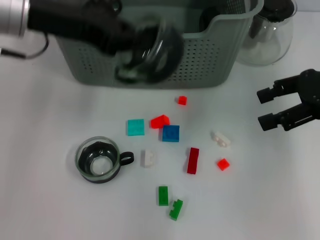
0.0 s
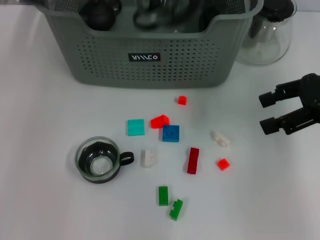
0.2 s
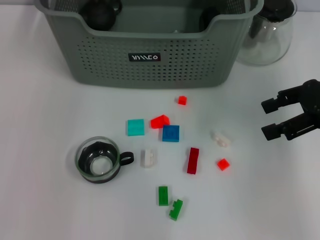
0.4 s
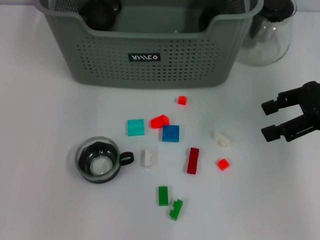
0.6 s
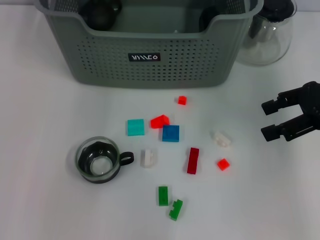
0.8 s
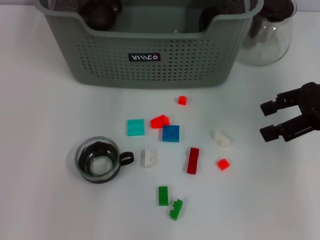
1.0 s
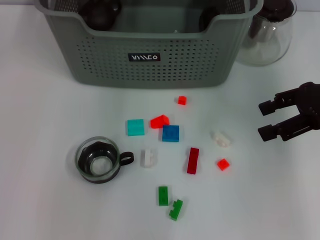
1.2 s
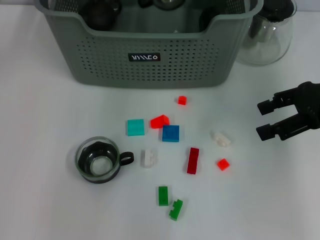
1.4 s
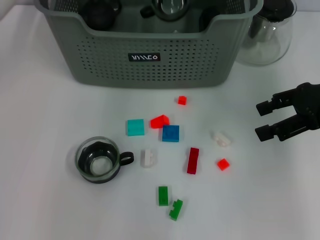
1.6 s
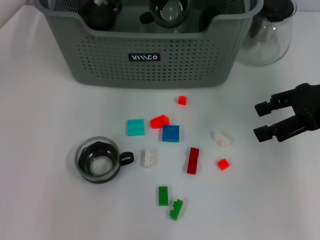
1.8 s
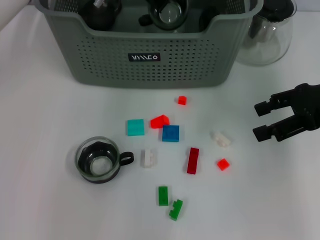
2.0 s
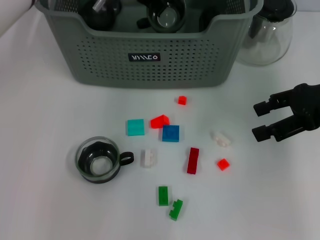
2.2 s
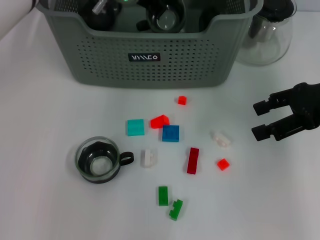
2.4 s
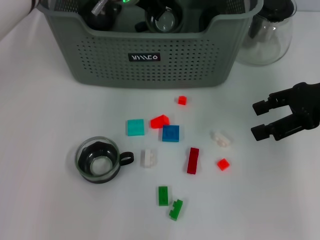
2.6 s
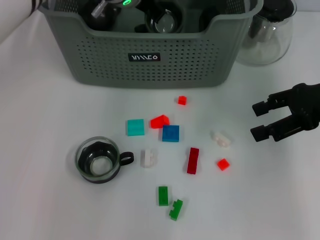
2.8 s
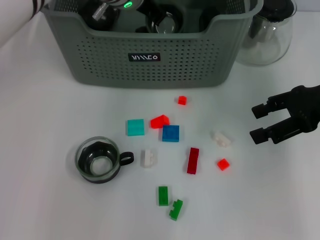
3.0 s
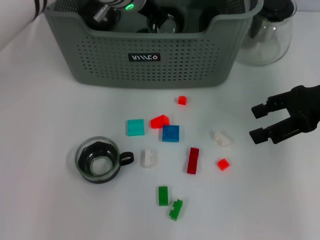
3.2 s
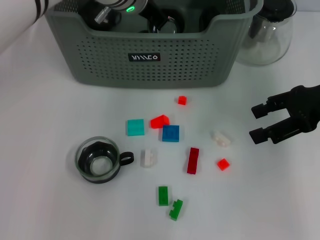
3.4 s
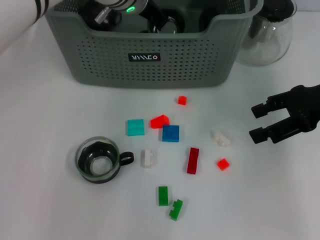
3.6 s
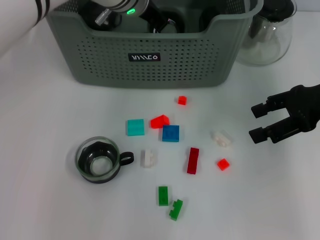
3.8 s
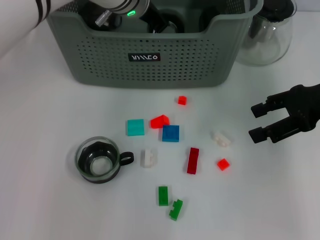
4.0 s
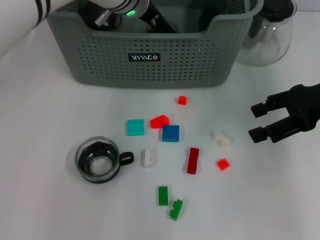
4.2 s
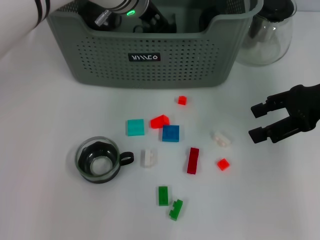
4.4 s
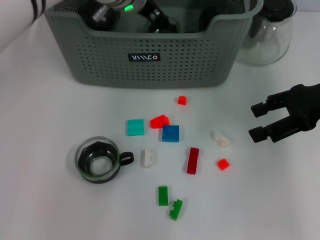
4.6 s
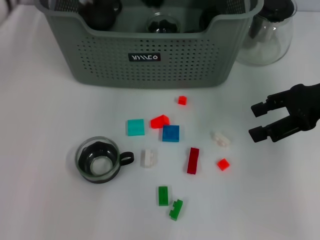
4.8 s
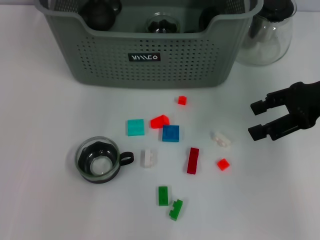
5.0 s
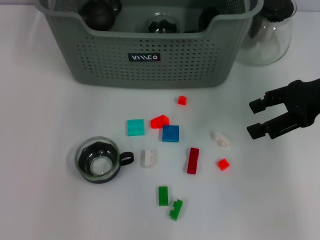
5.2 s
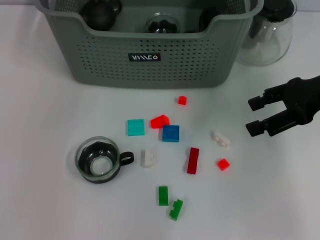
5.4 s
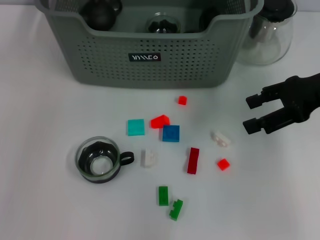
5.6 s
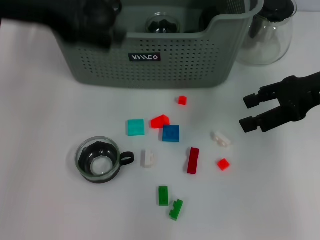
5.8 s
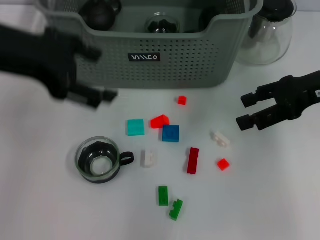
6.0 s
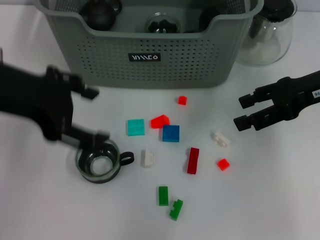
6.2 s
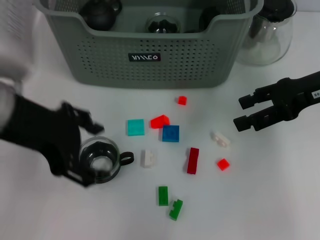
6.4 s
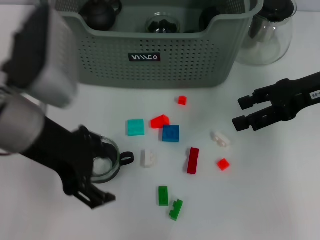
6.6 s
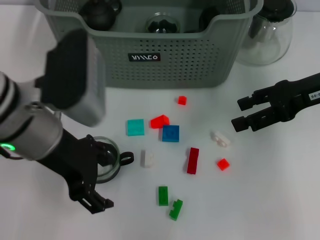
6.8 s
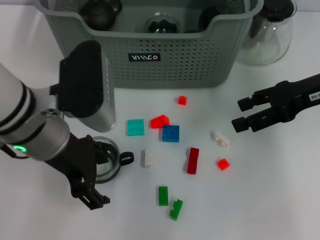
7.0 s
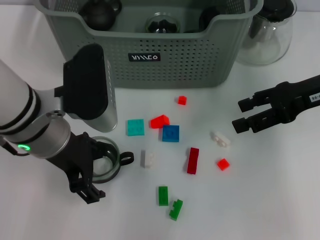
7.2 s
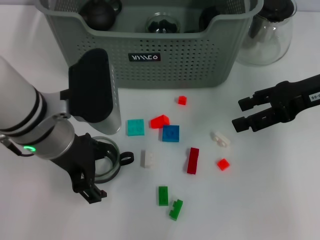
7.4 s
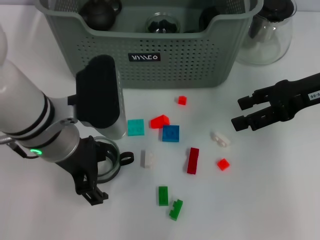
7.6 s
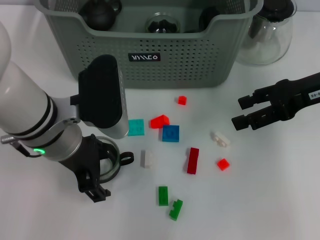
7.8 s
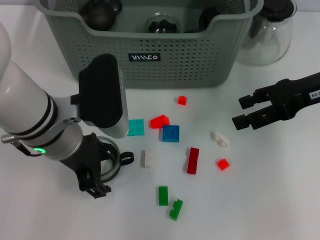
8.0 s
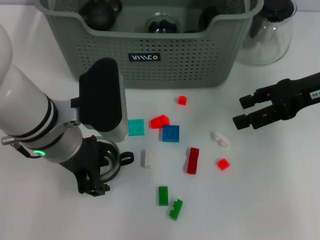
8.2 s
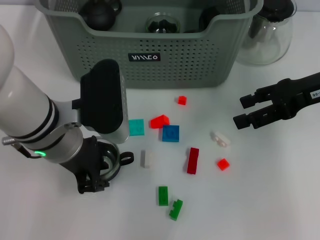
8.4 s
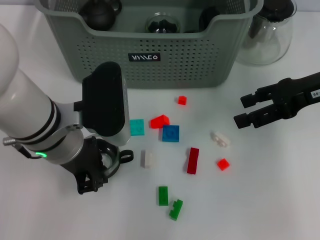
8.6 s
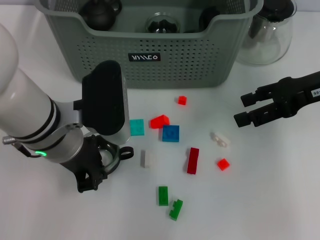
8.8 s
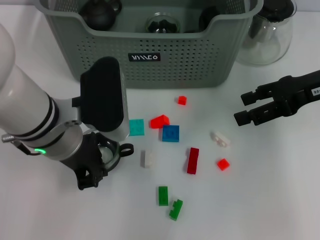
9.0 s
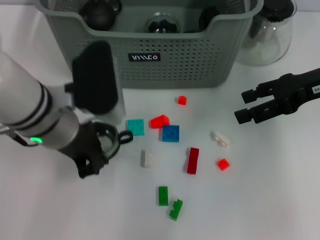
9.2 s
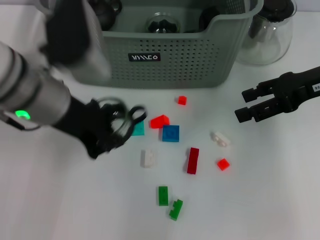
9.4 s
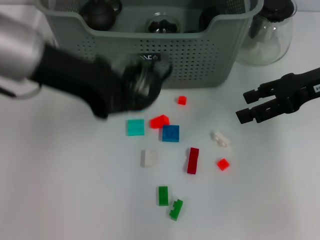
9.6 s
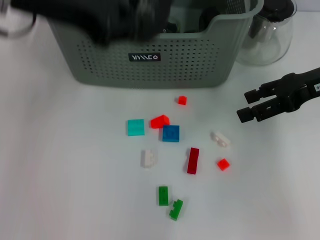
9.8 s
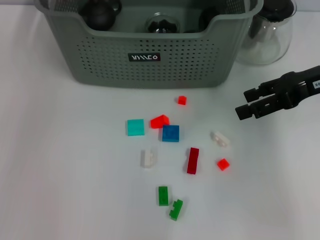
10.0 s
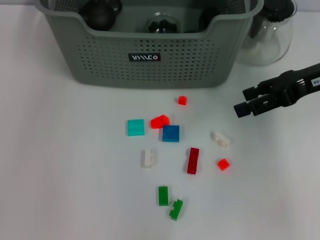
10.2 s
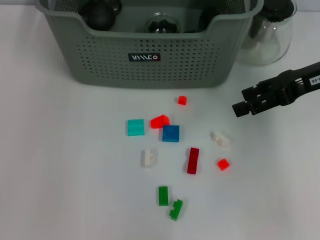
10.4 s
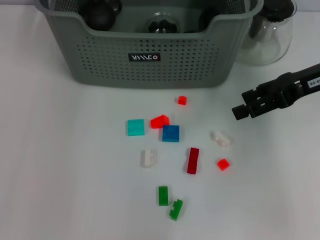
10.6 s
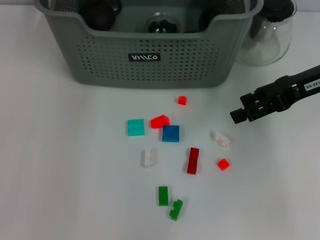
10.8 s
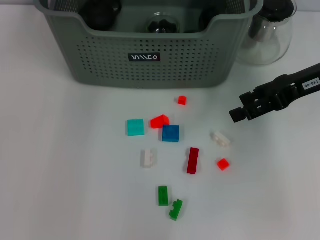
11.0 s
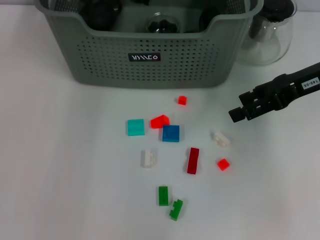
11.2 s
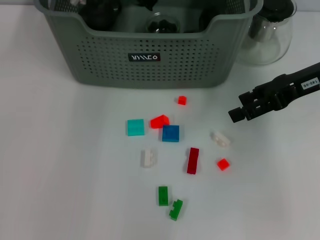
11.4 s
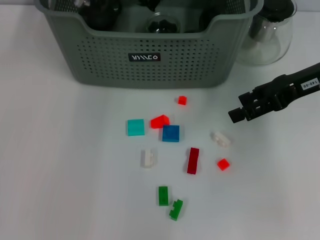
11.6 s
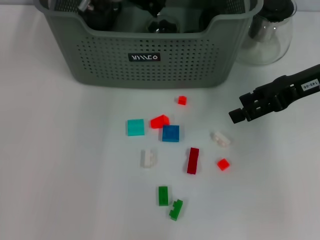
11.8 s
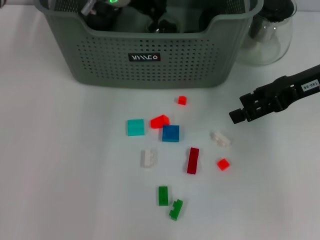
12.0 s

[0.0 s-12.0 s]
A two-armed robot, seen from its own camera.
Task of the whole recording: pick up the teacup on the table and place it into the storage bin, pick up the block on the table and place it into the storage bin.
Step, 0.0 to 4.6 s: Place the cup in the storage box with left gripper.
Step, 4.8 to 8.6 s: Grasp the cup with left gripper.
0.0 to 1.6 s: The left gripper moves forward and to the right, some 20 cm.
1.6 to 3.0 s: The grippers move only a little.
3.0 to 4.4 s: Neither gripper changes place.
4.4 to 6.0 s: The left gripper travels backward, to the left and upward by about 25 cm, and opens up.
6.0 to 7.6 s: The left gripper travels downward and to the right by roughly 15 cm.
7.6 to 9.0 s: The left gripper closes.
9.0 to 10.4 s: The left gripper is displaced forward and upward by some 25 cm.
10.4 to 12.0 s: The left gripper is displaced downward and to the right by roughly 15 cm.

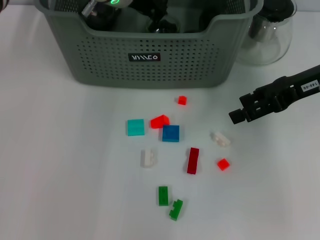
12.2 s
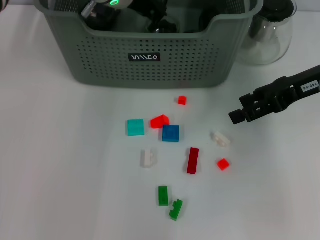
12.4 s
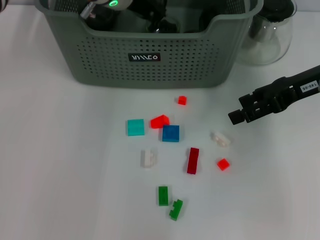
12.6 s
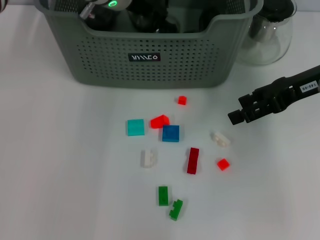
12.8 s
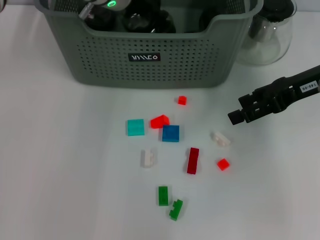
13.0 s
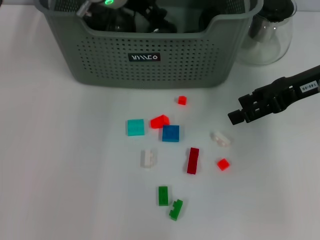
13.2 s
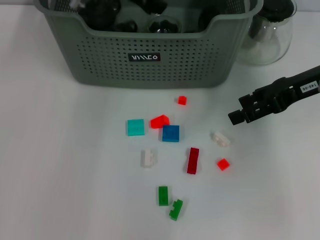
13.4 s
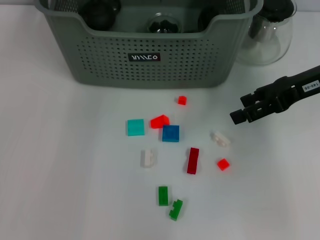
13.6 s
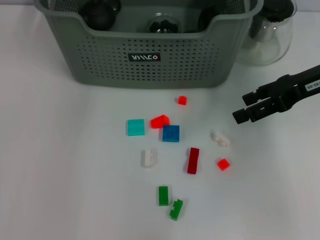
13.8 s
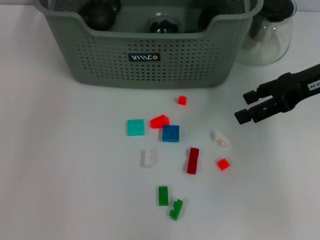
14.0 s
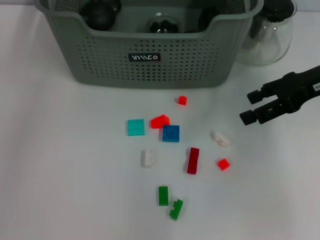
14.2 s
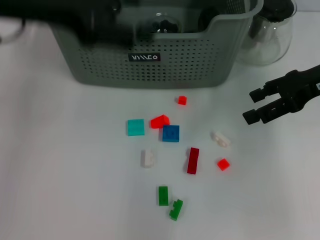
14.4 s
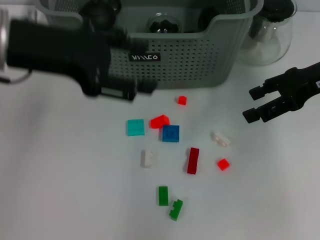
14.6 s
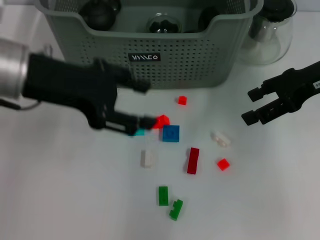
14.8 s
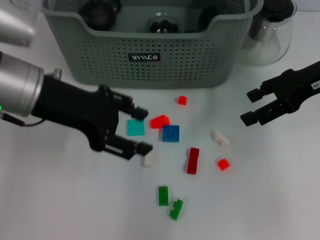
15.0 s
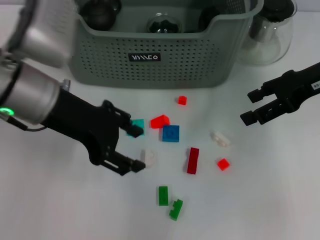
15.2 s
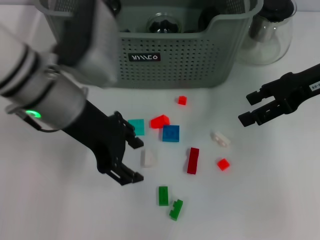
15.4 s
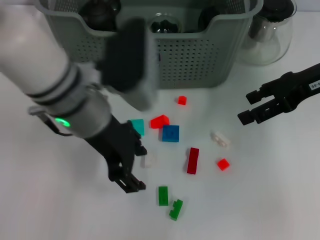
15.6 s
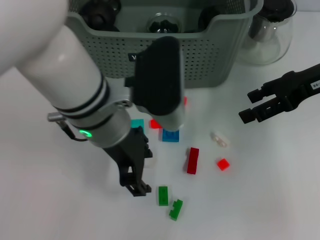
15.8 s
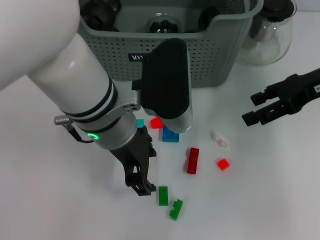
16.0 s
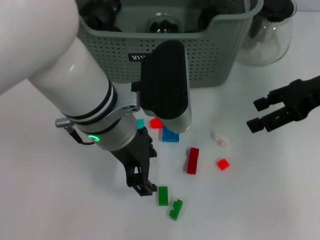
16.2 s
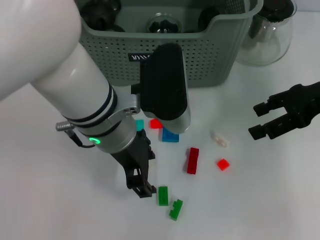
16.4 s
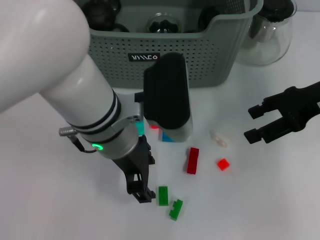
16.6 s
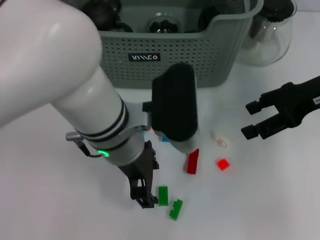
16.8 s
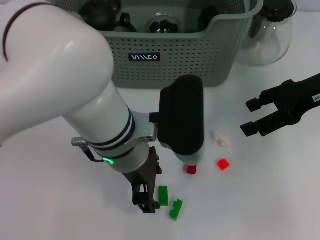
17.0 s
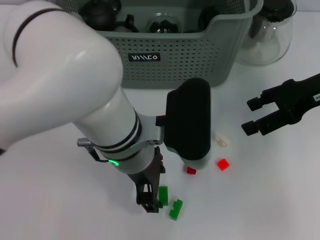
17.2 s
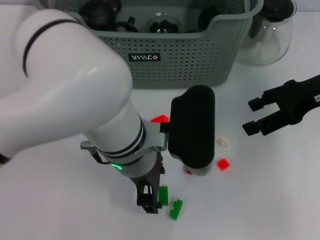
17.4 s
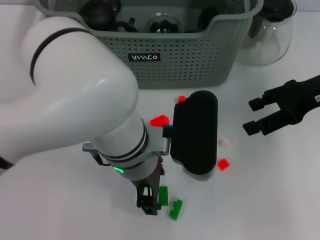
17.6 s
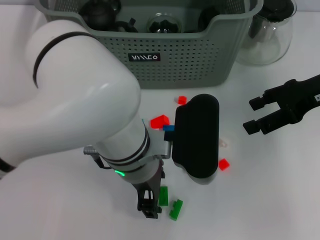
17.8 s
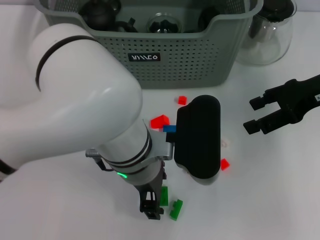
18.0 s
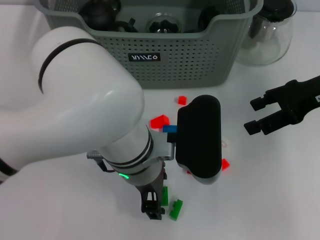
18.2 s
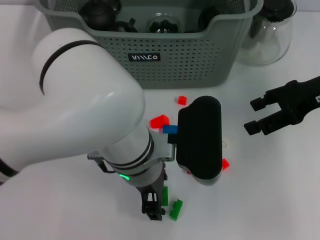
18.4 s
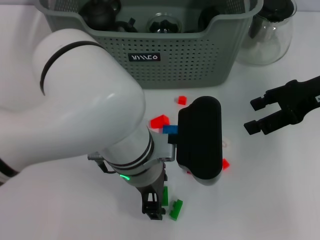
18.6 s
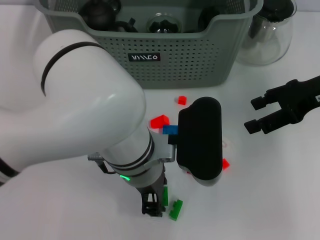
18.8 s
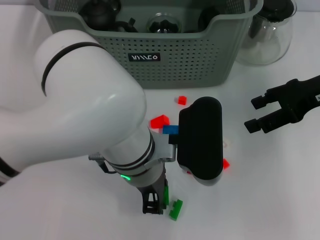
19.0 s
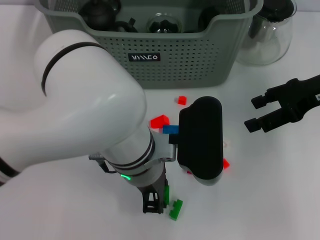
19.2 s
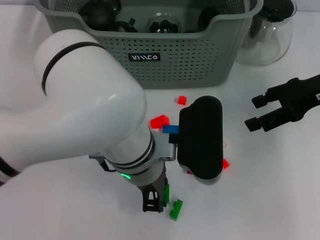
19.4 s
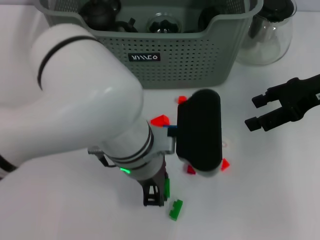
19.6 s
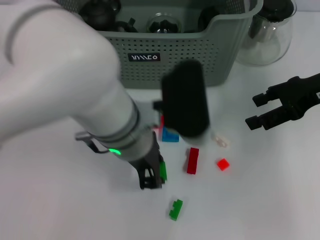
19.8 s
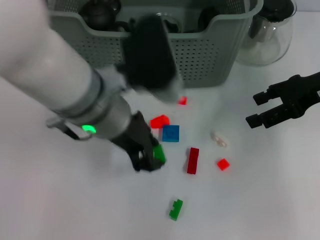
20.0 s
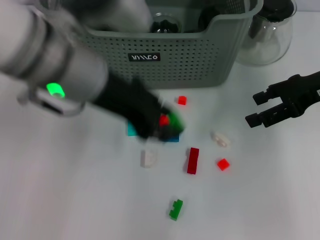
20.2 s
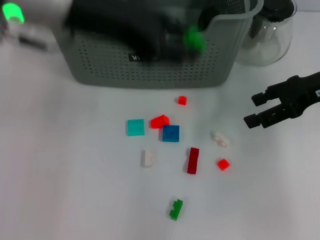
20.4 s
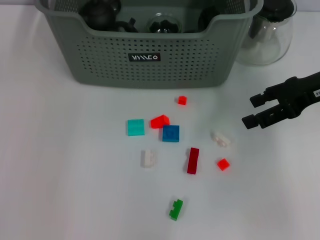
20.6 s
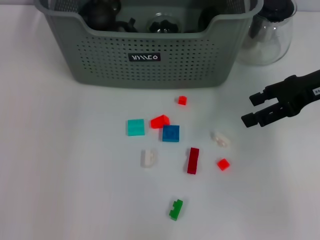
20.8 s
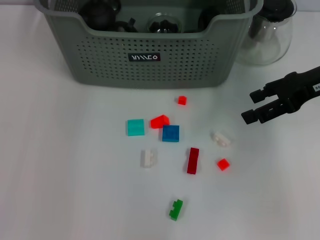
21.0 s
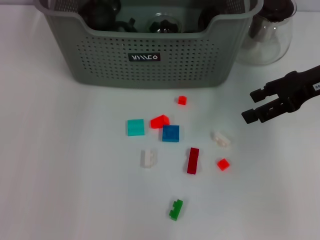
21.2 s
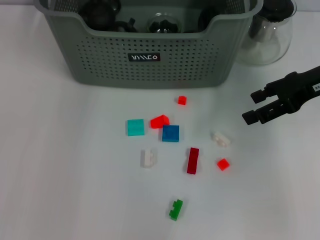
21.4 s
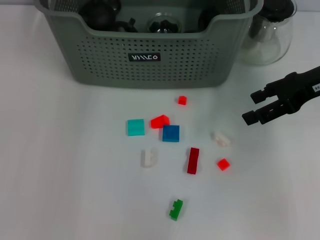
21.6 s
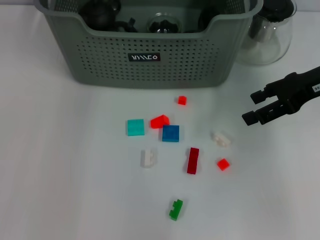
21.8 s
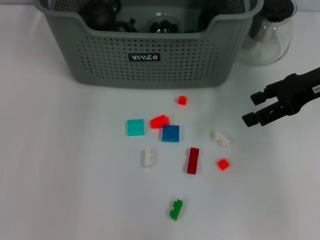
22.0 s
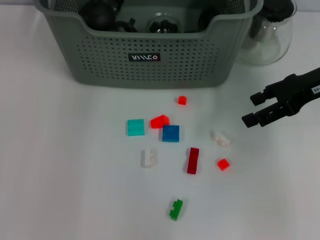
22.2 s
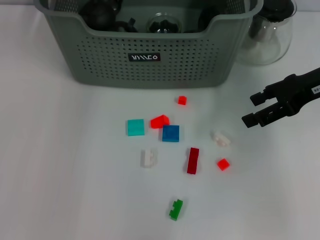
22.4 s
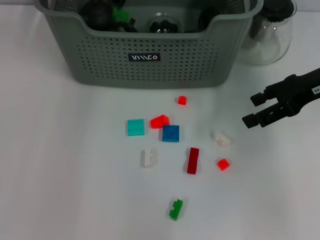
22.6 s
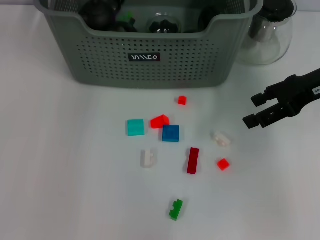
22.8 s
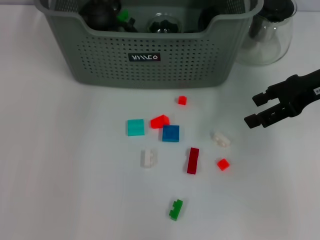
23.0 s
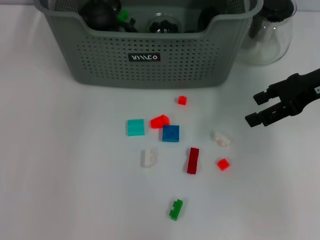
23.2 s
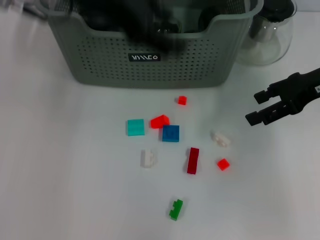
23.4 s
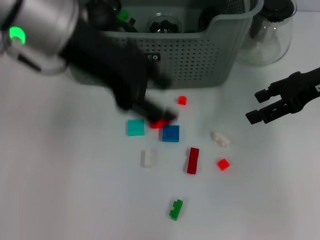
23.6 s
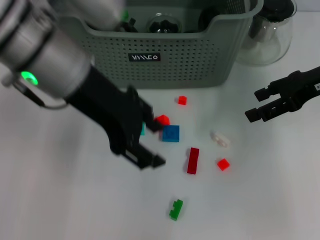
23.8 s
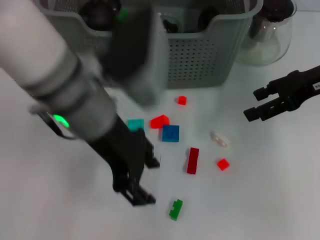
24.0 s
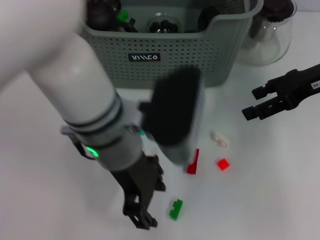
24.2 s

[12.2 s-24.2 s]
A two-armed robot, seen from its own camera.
Task of the whole recording: pick up the teacup on the table and place it into the storage bin, pick up the block on the table and place it into the storage bin.
Step, 13.4 to 19.2 s: Grasp the green block with left gripper.
Step, 19.4 to 22.6 s: Place the green block in the storage box with left gripper.
12.2 to 13.8 s: The left gripper shifts about 10 cm upward and to the left, and opens.
13.8 to 15.2 s: The left gripper is displaced backward and downward by roughly 15 cm.
15.2 to 16.6 s: The left gripper heads to the right, covering approximately 10 cm.
16.6 to 18.2 s: The left gripper ends up approximately 5 cm from where it was.
18.2 to 19.8 s: The left gripper closes its fingers.
19.8 to 21.2 s: The left gripper moves forward, upward and to the left, some 25 cm.
21.2 to 22.6 s: The grippers make only small movements.
22.6 to 24.2 s: The left gripper is displaced backward and to the right by approximately 20 cm.
